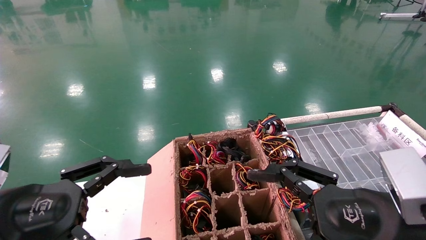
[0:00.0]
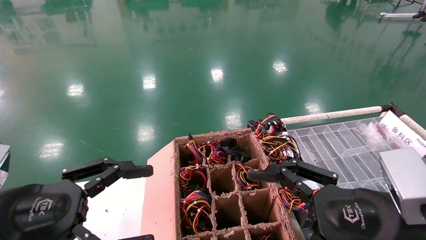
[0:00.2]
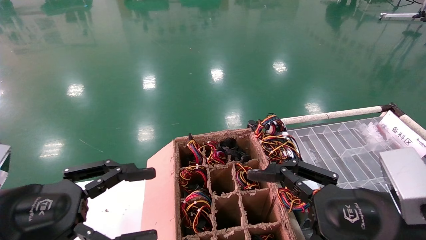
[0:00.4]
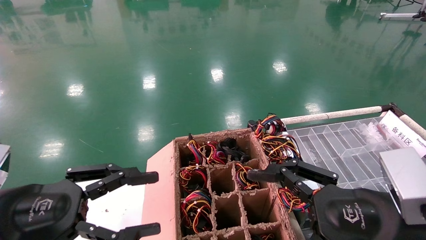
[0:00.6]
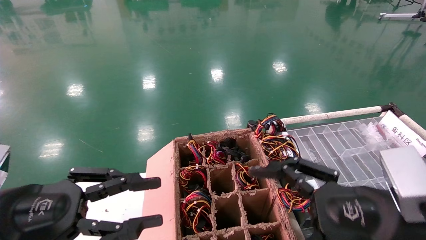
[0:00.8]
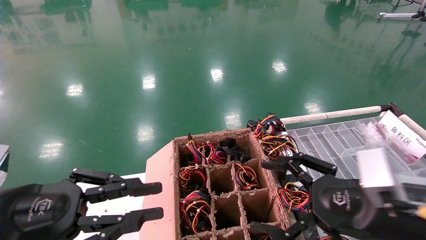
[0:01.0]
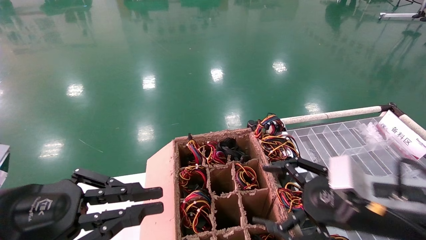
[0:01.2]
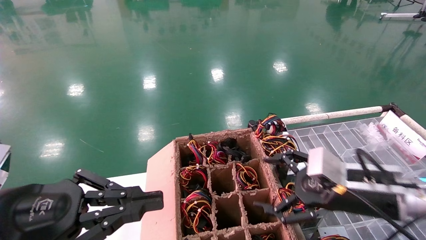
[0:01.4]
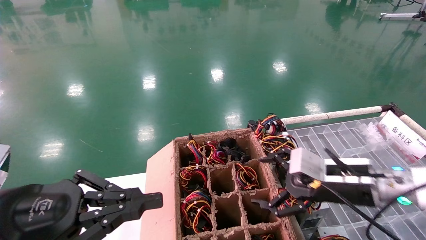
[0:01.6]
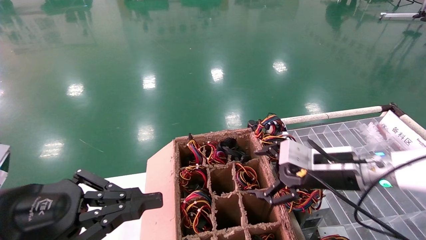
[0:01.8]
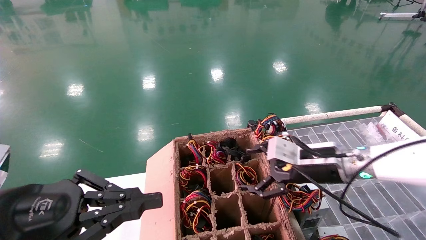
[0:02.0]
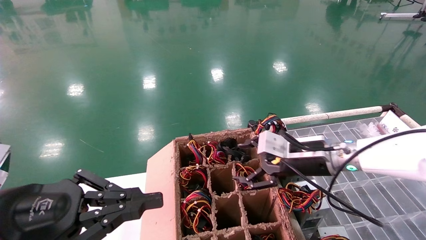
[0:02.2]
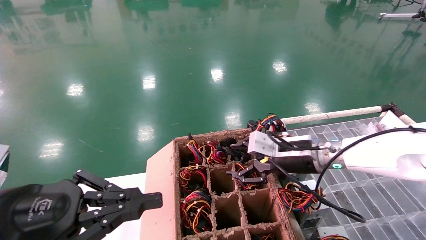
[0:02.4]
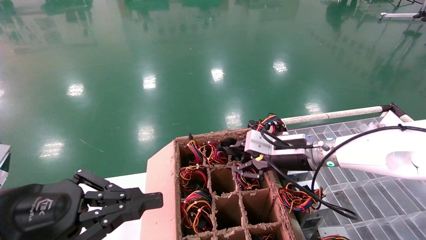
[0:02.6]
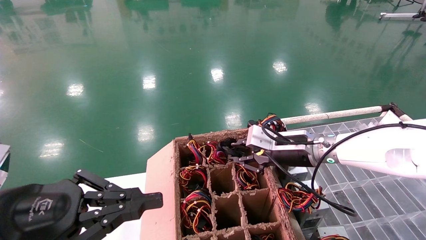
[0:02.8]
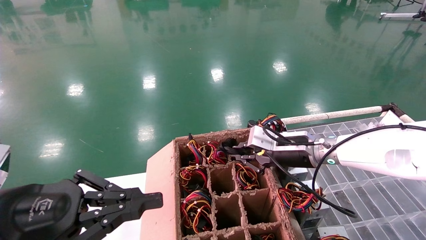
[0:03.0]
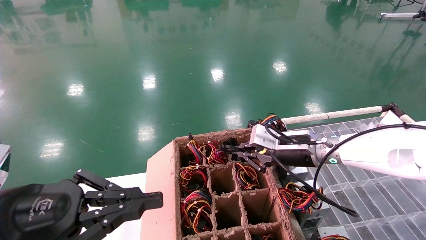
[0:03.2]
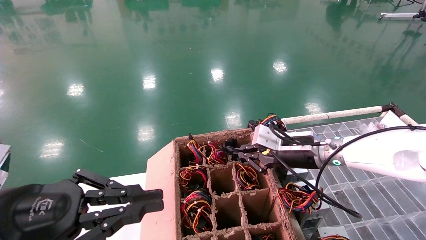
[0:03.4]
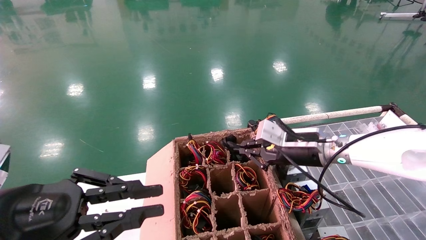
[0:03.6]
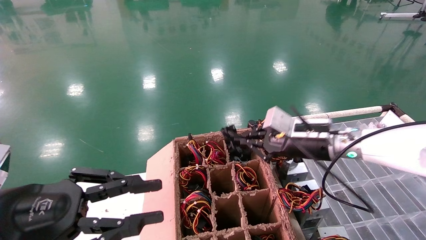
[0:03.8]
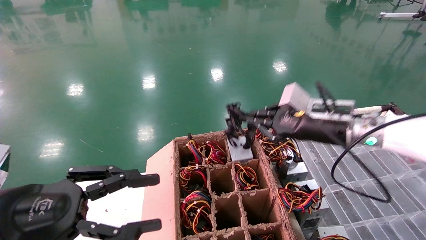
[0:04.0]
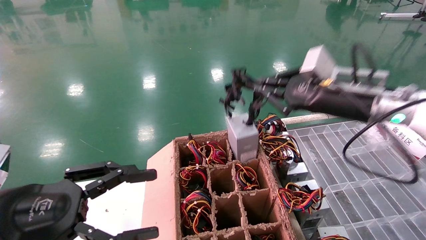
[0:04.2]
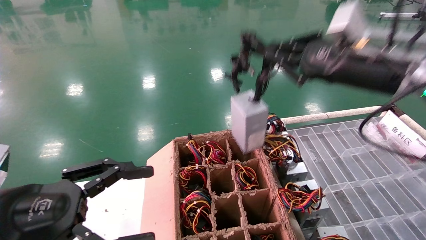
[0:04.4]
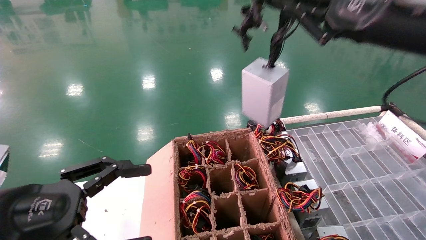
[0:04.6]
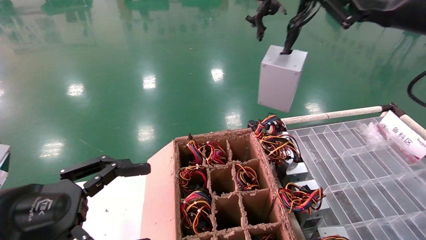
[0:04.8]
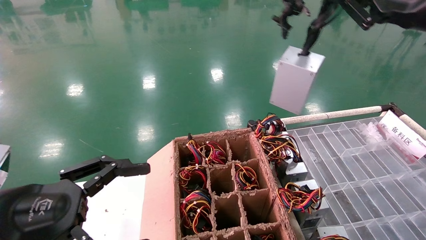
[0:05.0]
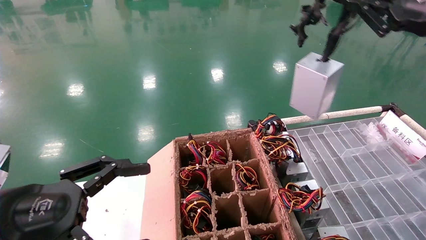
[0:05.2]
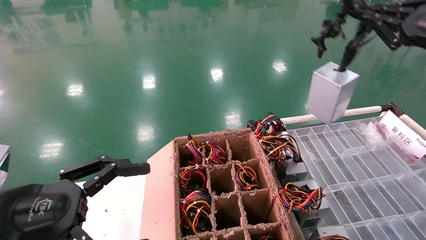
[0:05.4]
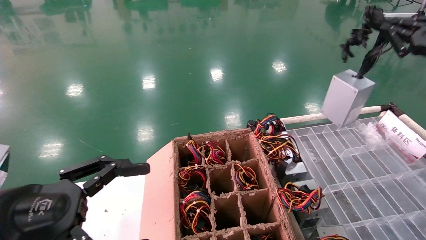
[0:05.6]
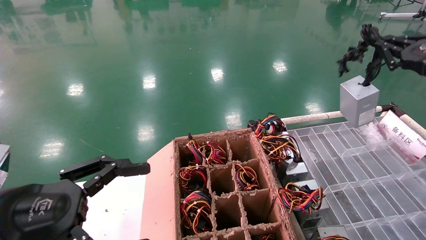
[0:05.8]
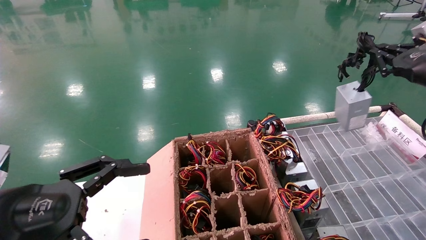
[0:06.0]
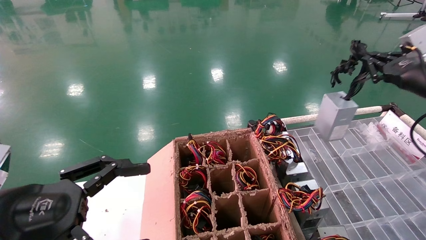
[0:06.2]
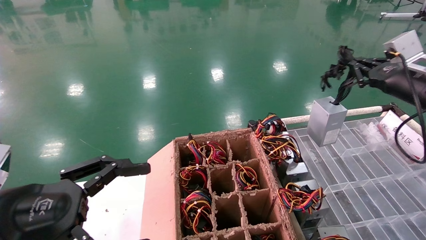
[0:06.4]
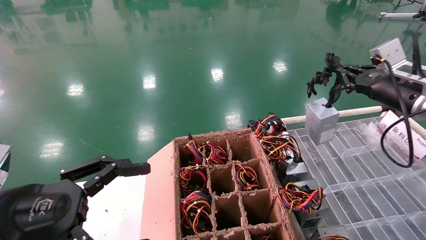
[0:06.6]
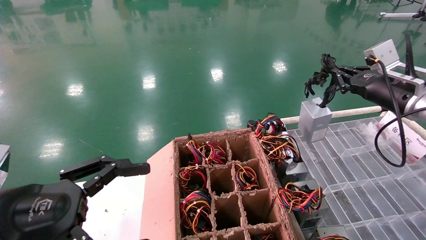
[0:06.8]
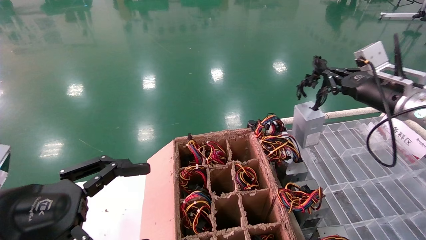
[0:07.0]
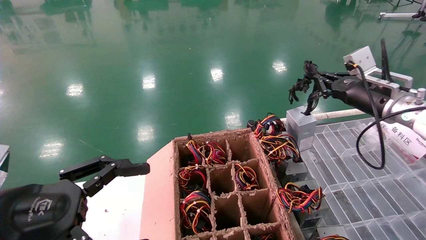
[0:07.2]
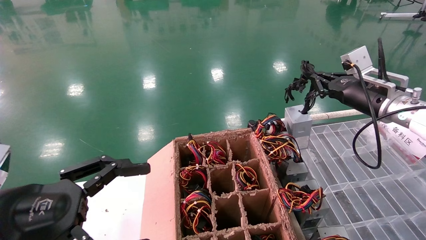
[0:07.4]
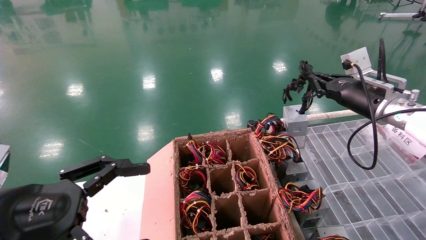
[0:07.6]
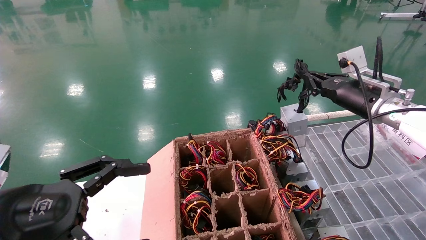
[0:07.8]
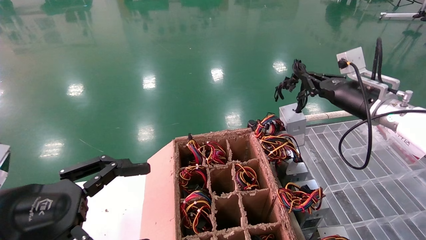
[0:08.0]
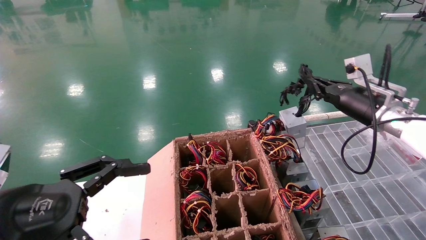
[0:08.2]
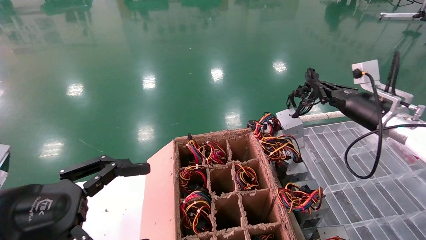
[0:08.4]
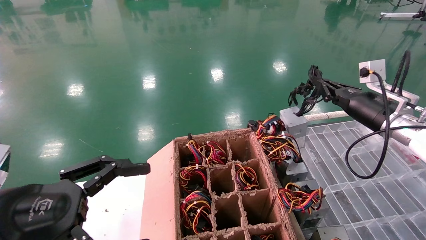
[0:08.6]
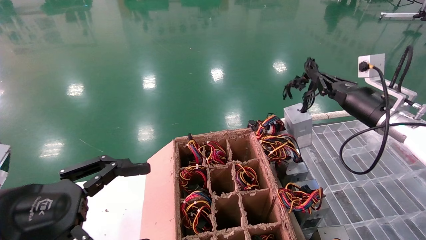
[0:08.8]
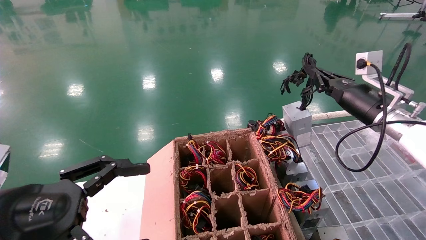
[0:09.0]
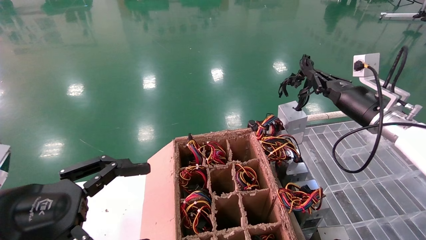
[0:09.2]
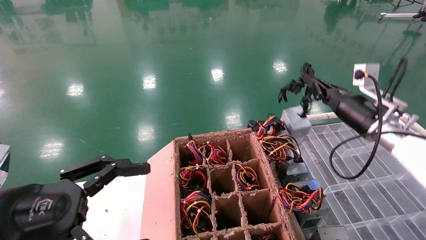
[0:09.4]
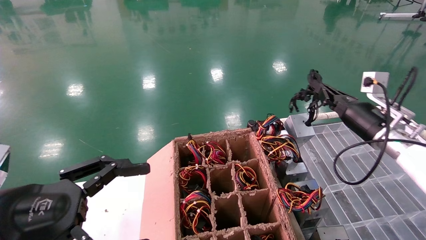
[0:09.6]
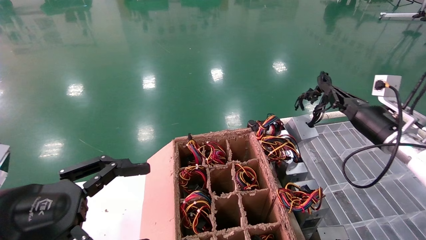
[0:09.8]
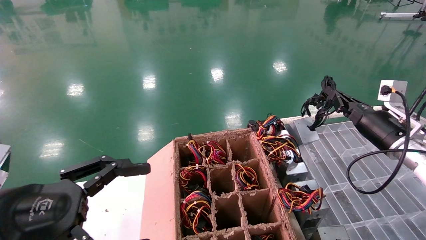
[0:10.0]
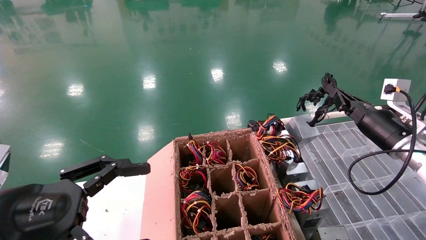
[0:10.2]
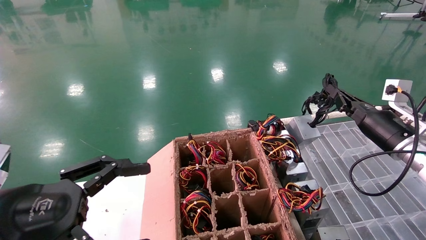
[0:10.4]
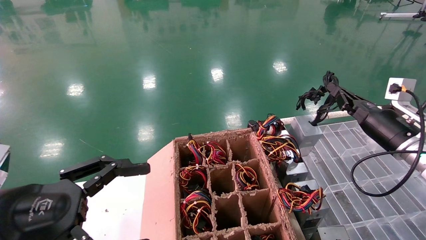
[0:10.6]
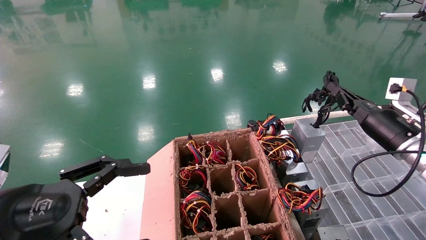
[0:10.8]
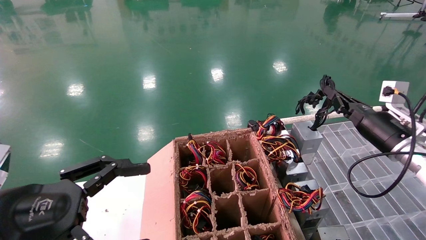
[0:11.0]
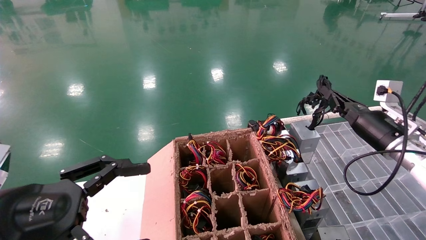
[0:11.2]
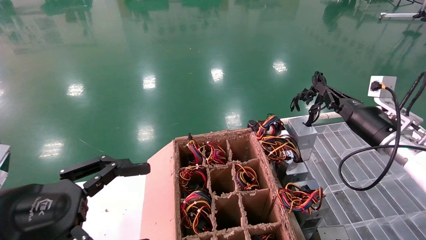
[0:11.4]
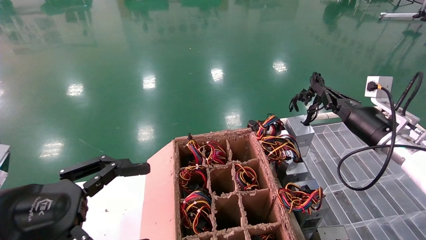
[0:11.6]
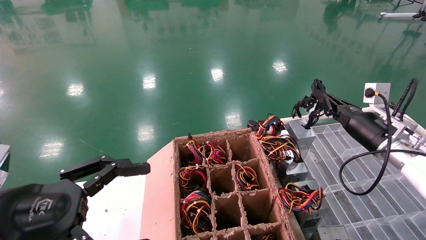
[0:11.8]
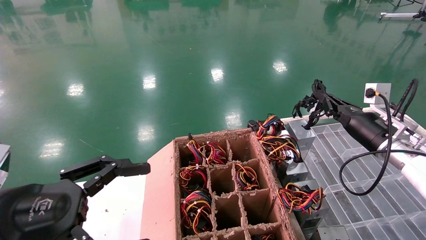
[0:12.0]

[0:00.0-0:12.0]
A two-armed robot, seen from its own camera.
Step, 0:01.6 to 0:03.4: Grab and lift the power supply from the large box.
0:00.0 to 0:01.6: The right gripper shifts approximately 15 cm forward; the left gripper closes its fingers.
0:01.6 to 0:03.0: The right gripper goes about 10 cm forward and to the left, and closes its fingers.
0:03.0 to 0:04.4: The right gripper moves upward, backward and to the right, roughly 20 cm. Meanwhile the left gripper opens up.
0:04.4 to 0:06.0: The right gripper is displaced to the right by about 15 cm.
0:06.0 to 0:07.6: The right gripper goes roughly 15 cm to the left, forward and downward.
0:07.6 to 0:09.0: There are only small adjustments of the grippers.
0:09.0 to 0:10.4: The right gripper travels downward by roughly 5 cm.
0:10.4 to 0:12.0: The grippers stay close to where they were, moving slightly.

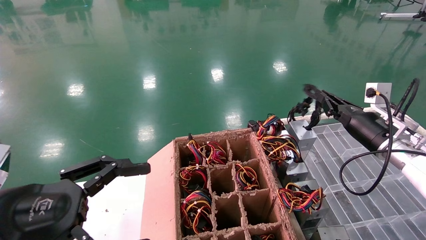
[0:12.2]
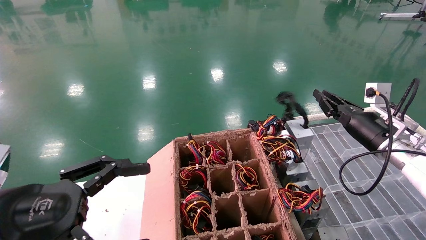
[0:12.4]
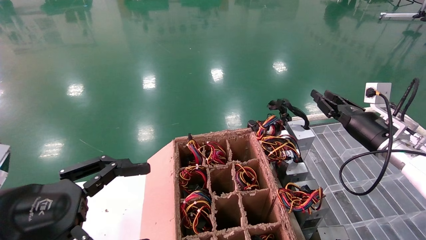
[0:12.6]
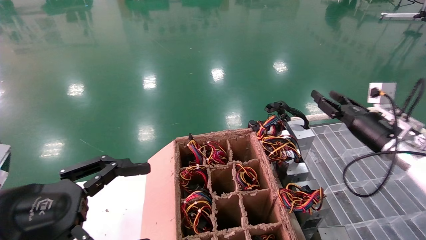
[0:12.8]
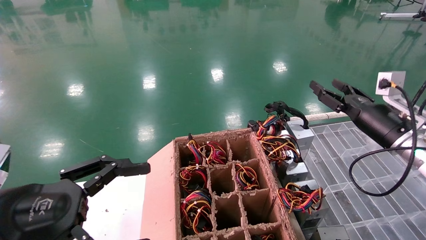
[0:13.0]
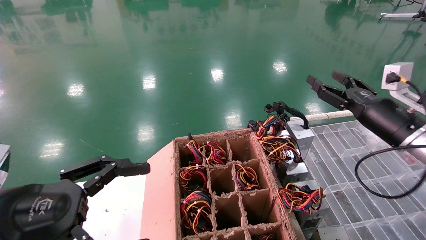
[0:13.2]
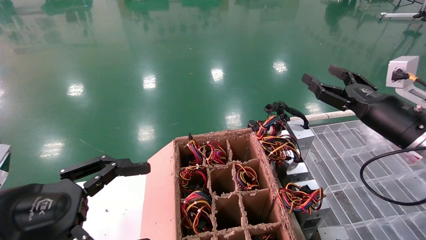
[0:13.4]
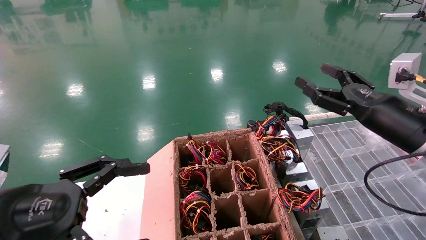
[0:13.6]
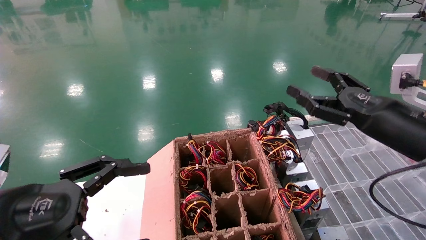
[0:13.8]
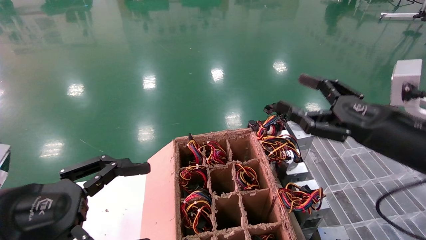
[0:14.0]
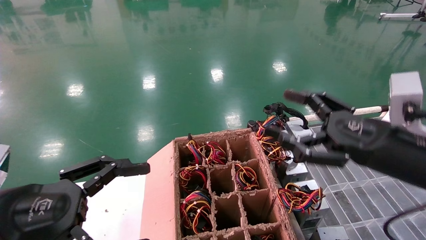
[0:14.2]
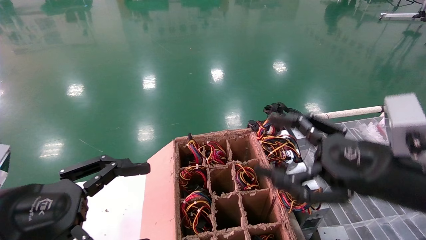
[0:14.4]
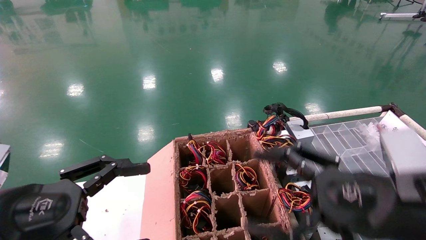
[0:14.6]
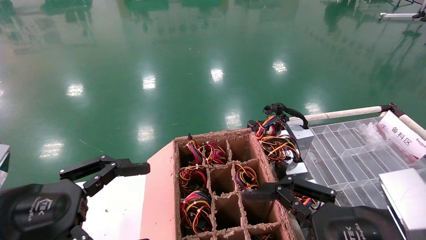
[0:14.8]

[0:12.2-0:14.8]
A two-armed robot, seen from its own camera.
0:12.2 to 0:13.4: The right gripper travels backward by approximately 5 cm, and opens.
0:13.4 to 0:14.8: The right gripper heads backward and to the left, covering approximately 20 cm.
